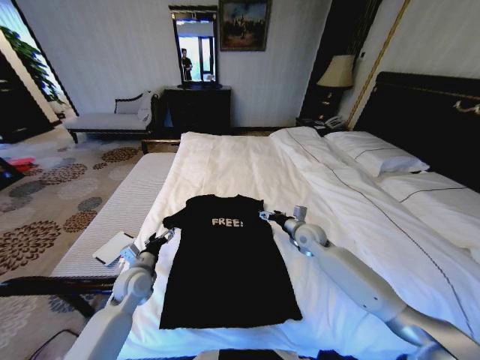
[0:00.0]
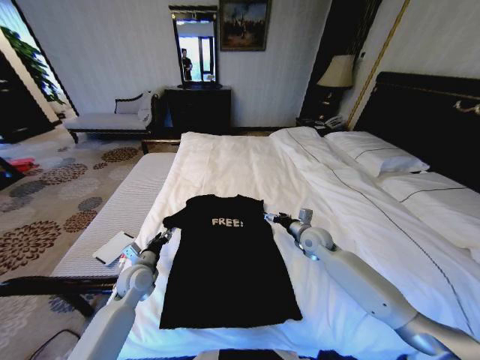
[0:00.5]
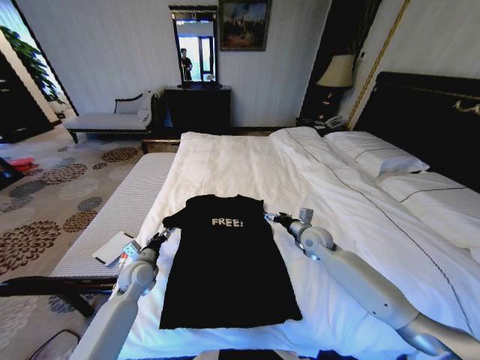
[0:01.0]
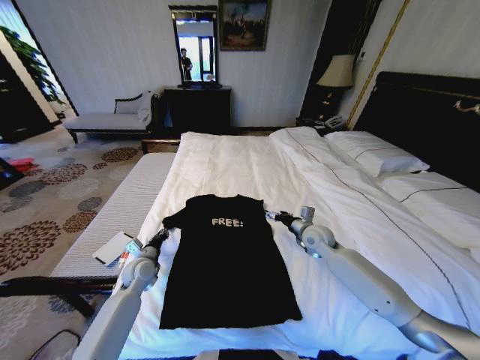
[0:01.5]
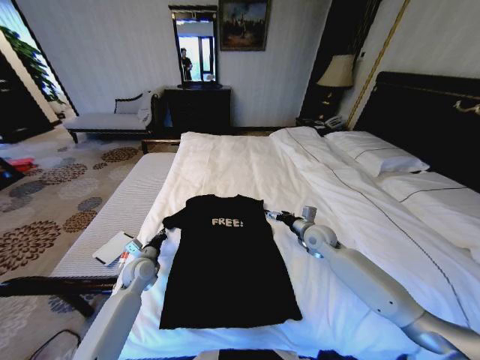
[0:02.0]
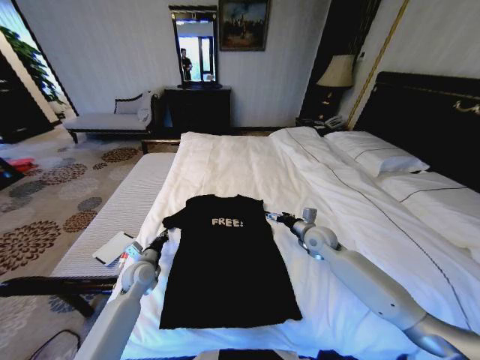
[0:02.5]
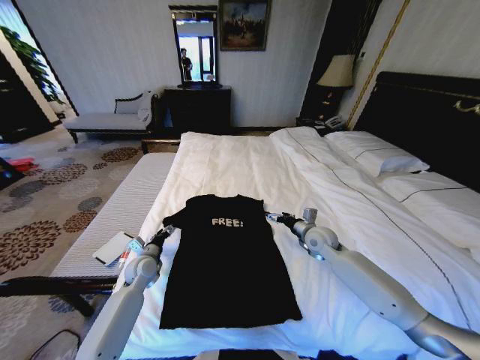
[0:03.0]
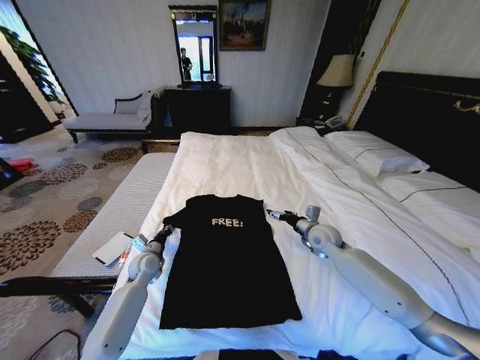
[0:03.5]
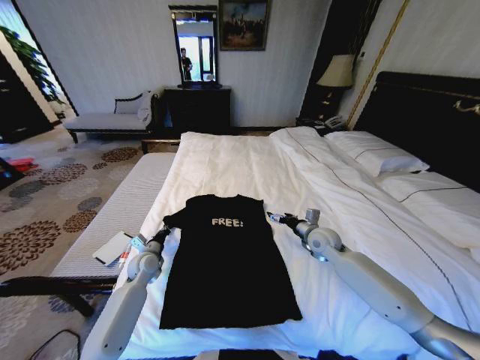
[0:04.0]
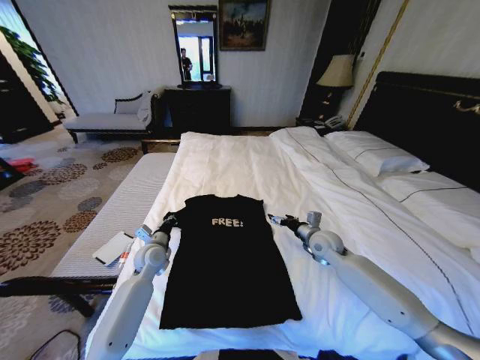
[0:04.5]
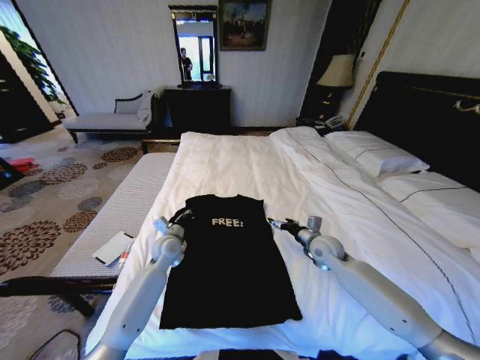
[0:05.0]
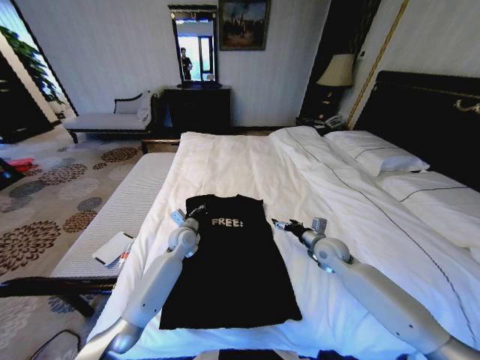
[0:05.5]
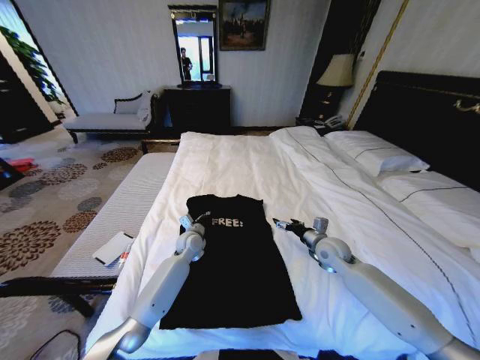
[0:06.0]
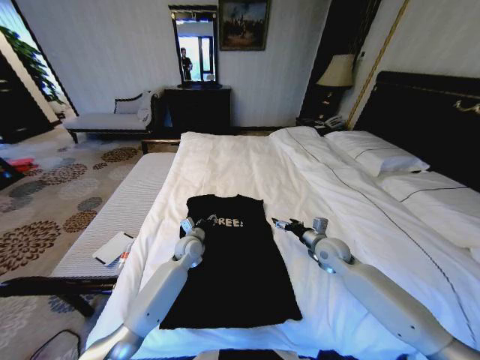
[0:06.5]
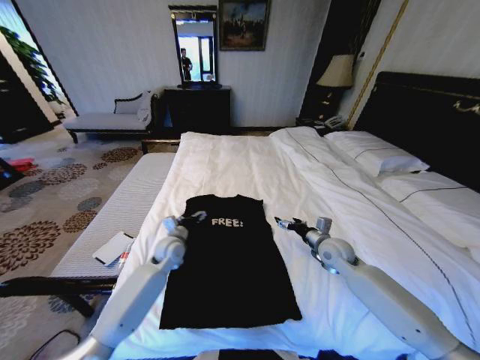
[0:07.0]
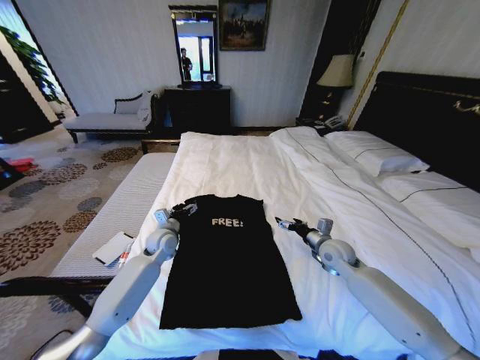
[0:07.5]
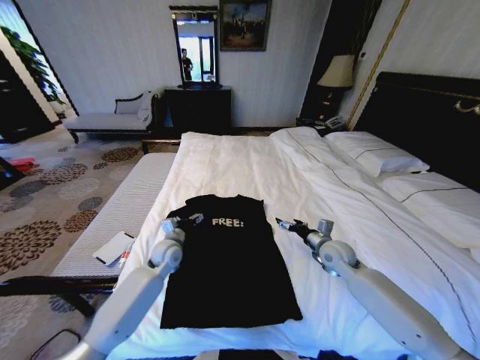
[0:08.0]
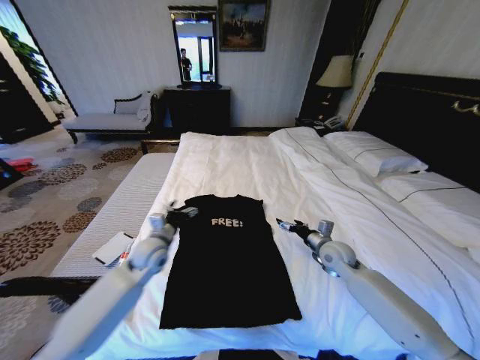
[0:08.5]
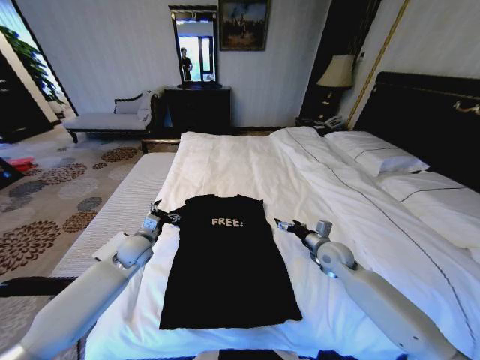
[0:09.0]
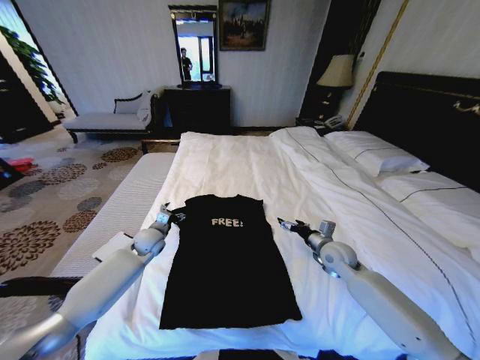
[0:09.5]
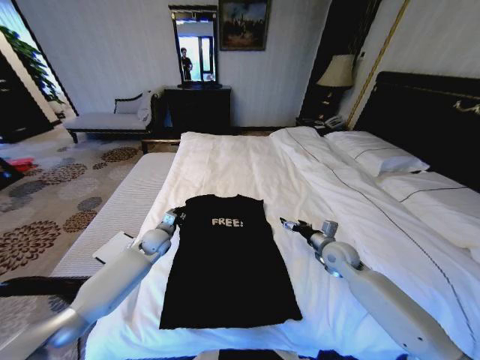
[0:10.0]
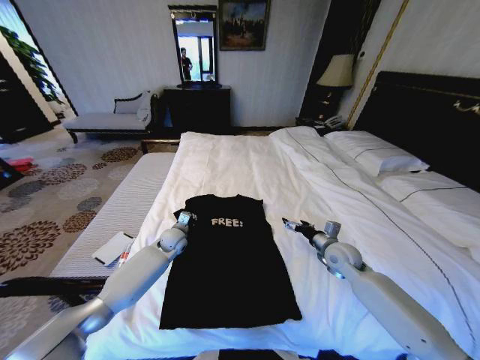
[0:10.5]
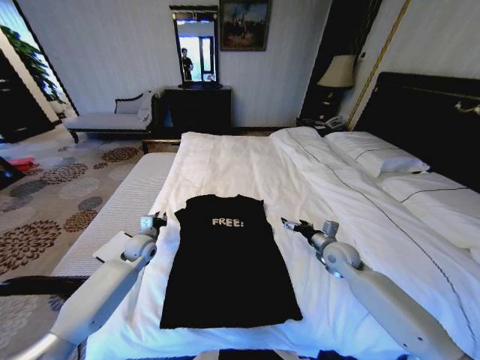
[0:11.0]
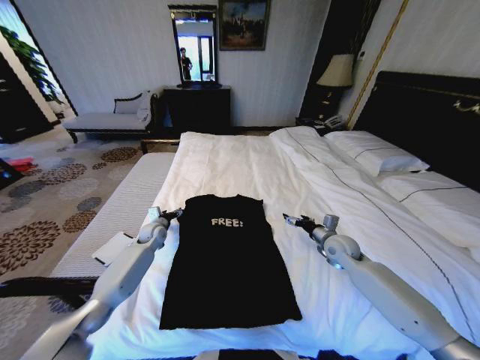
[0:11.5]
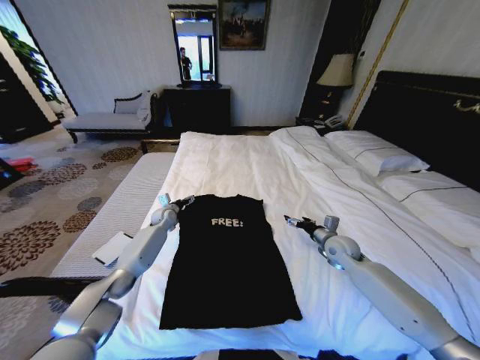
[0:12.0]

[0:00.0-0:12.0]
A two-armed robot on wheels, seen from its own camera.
Task of the whole recording: Fold the clothes on the bed.
0:00.0 to 0:02.0: The left gripper moves about 5 cm, and closes its fingers.
0:02.0 to 0:04.0: The left gripper opens, then closes once more.
0:04.0 to 0:06.0: The left gripper heads to the right and forward, covering approximately 15 cm.
0:06.0 to 0:08.0: The left gripper moves to the left and backward, roughly 10 cm, and opens its fingers.
0:08.0 to 0:10.0: The left gripper shifts some 5 cm forward, and closes.
0:10.0 to 0:12.0: The left gripper travels forward by about 10 cm, and opens up.

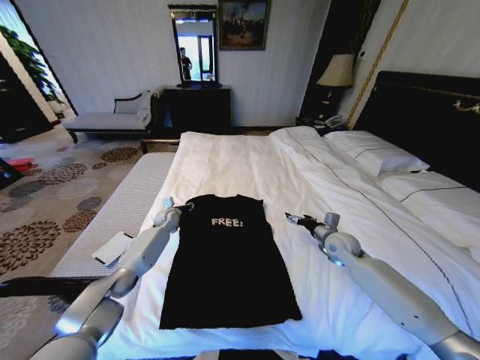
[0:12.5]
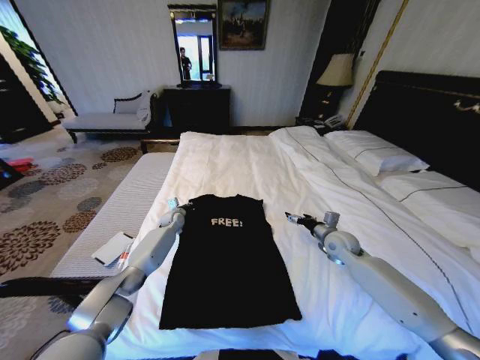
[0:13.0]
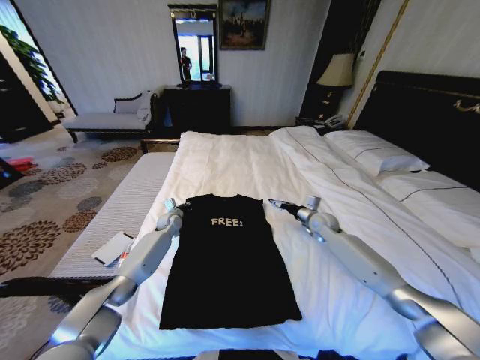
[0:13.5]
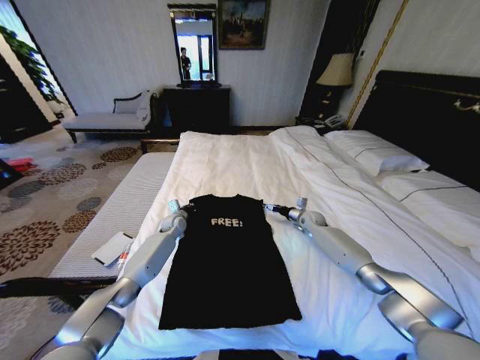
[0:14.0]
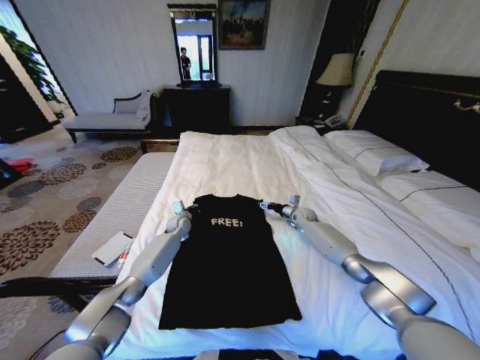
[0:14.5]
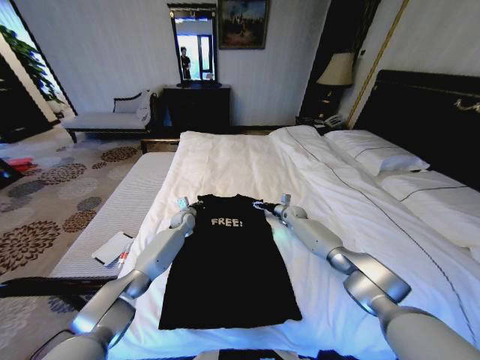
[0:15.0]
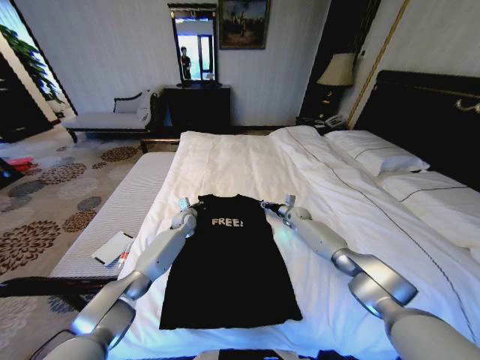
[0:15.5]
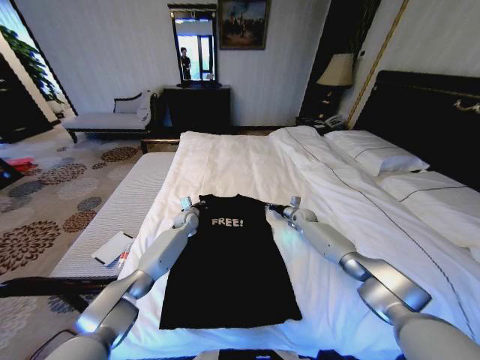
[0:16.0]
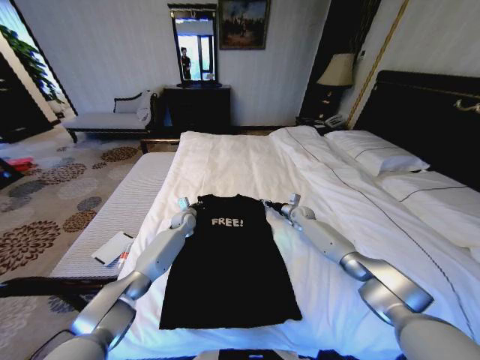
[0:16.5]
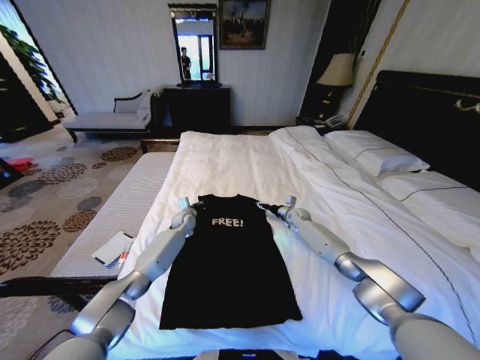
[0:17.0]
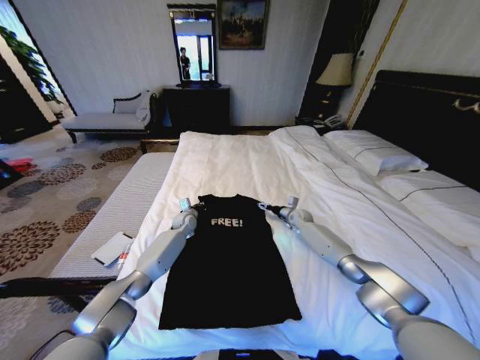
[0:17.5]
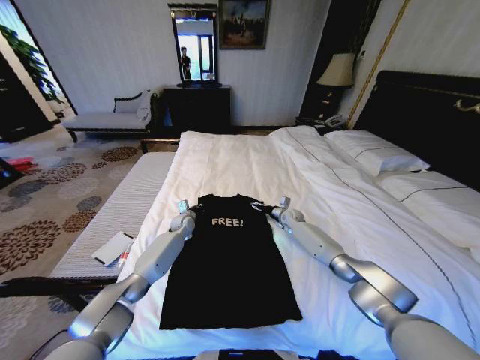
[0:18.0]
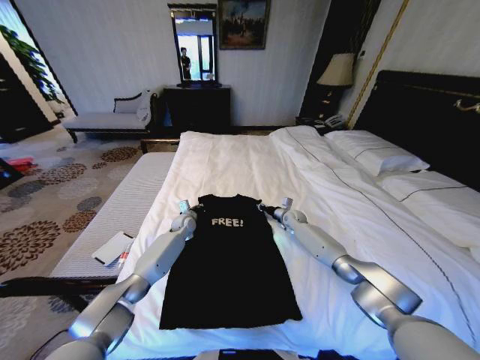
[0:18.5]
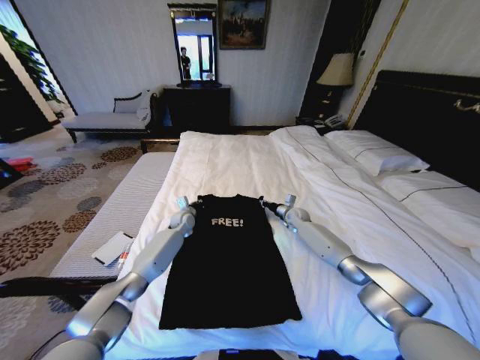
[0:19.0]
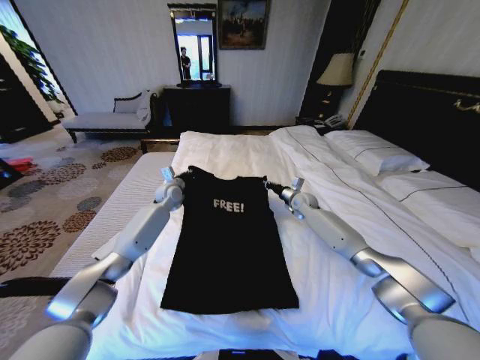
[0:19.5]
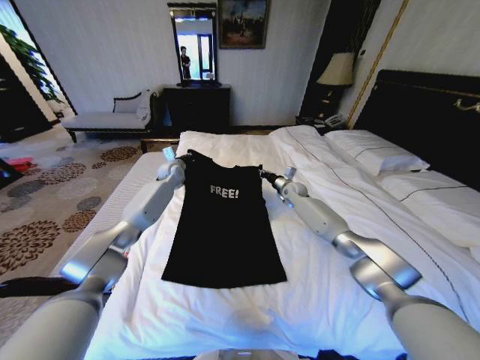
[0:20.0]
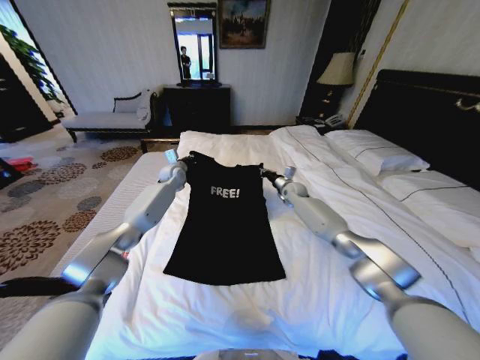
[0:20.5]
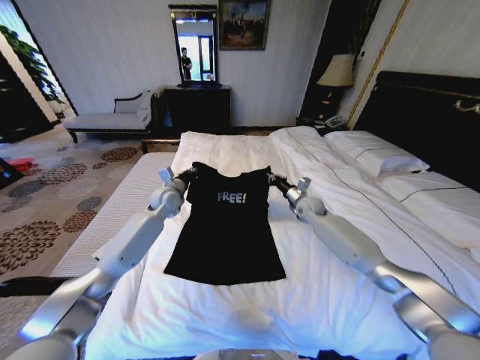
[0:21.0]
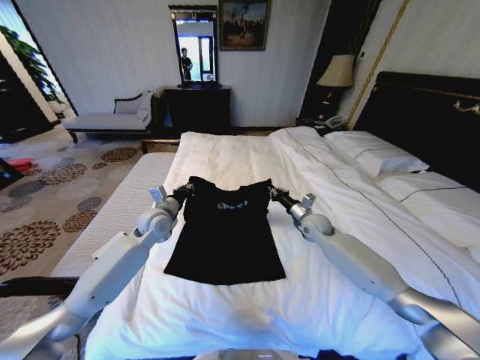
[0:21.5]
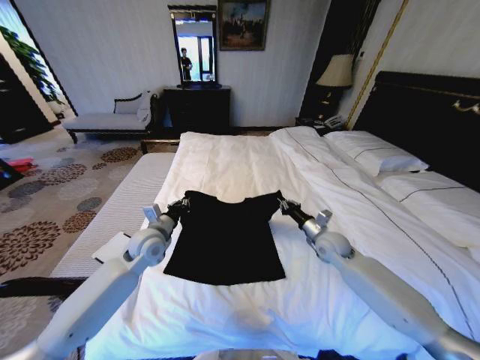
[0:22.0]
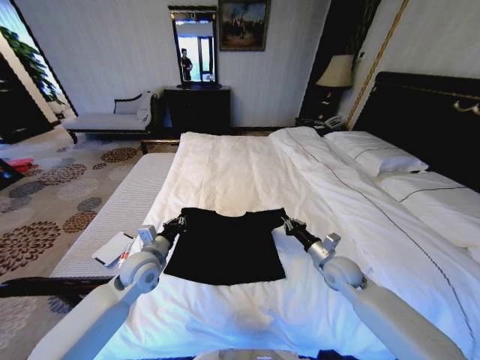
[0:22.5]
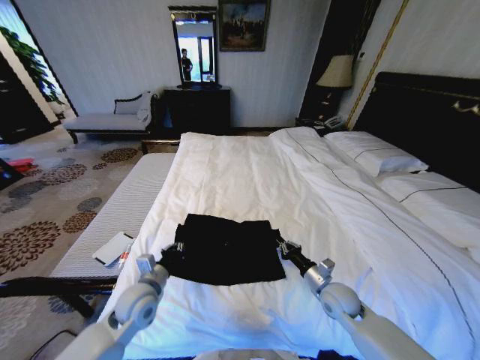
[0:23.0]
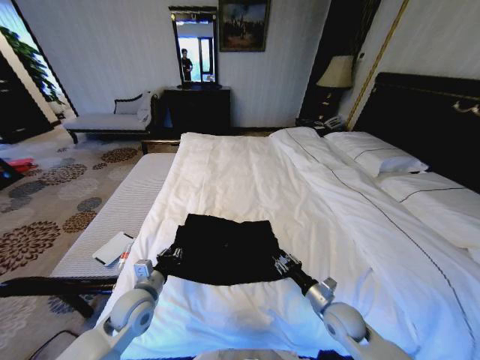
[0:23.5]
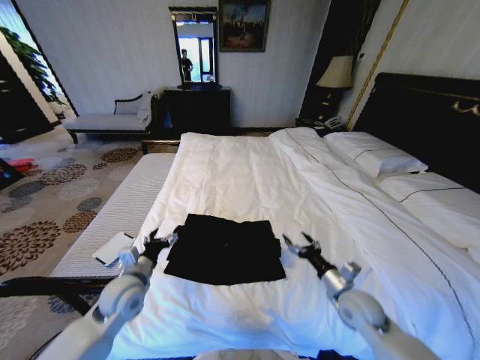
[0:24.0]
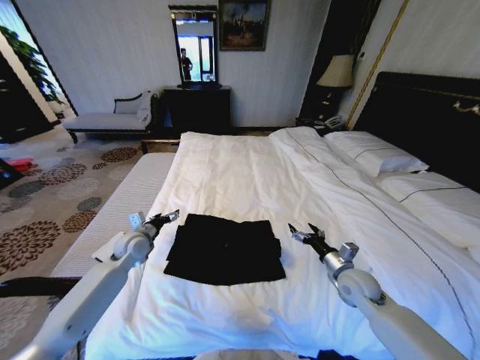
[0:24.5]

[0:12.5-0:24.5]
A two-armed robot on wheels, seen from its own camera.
Task of the whole recording: Fold the clothes on the bed.
0:12.5 to 0:14.5: The right gripper moves forward, approximately 20 cm. The left gripper heads to the right, covering roughly 5 cm, and closes.
0:14.5 to 0:16.5: The right gripper closes up.
0:16.5 to 0:18.5: The right gripper opens and closes again.
0:18.5 to 0:20.5: The right gripper is displaced upward and forward by approximately 15 cm; the left gripper goes approximately 20 cm upward and forward.
0:20.5 to 0:22.5: Both grippers travel together backward, some 35 cm.
0:22.5 to 0:24.5: The right gripper travels backward and back again, approximately 10 cm each way, and opens up. Meanwhile the left gripper travels forward and to the left by some 10 cm, and opens.

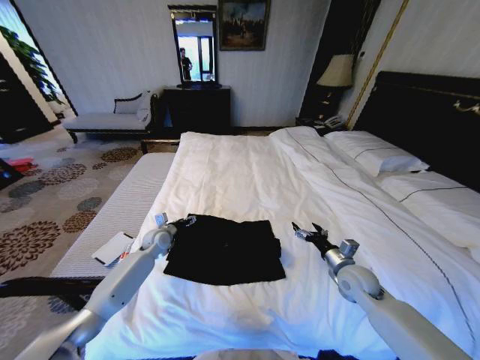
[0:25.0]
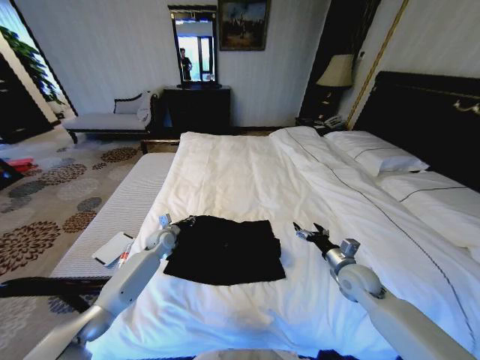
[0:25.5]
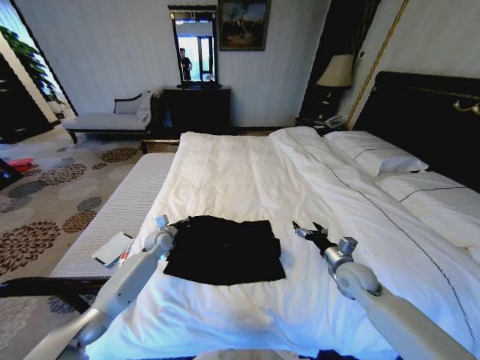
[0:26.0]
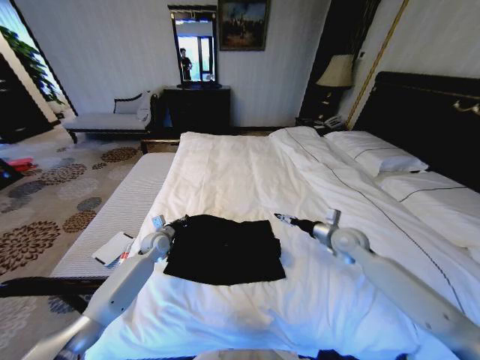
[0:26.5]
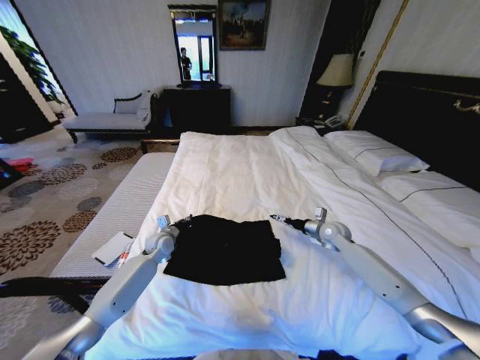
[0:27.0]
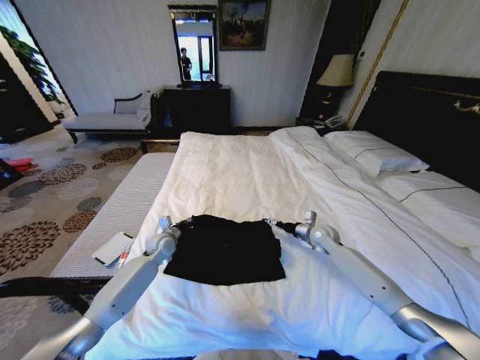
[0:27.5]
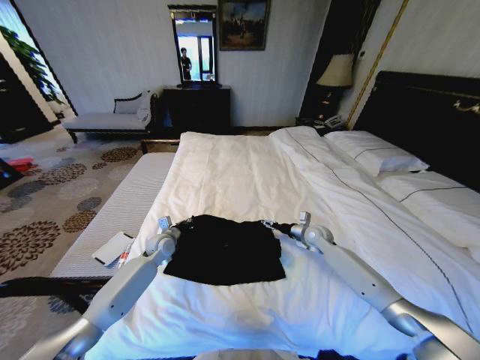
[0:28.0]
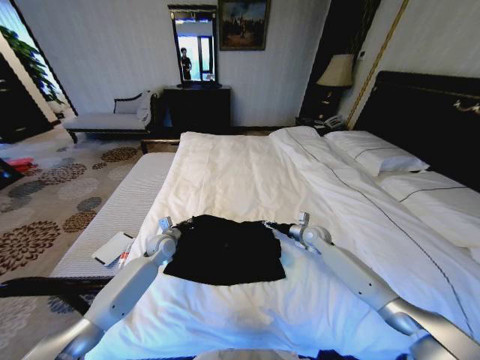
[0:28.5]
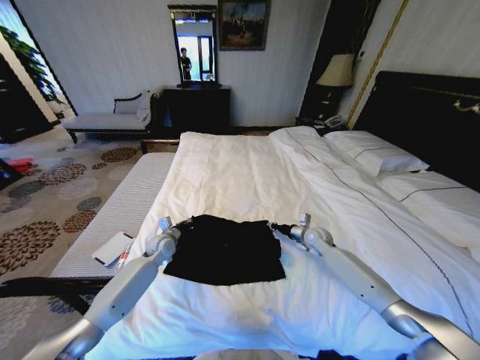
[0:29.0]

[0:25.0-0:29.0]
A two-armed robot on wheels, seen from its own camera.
Task of the whole recording: Fold the clothes on the bed.
0:25.0 to 0:27.0: The right gripper goes approximately 15 cm forward; the left gripper closes.
0:27.0 to 0:29.0: The right gripper moves roughly 5 cm, and closes up.
